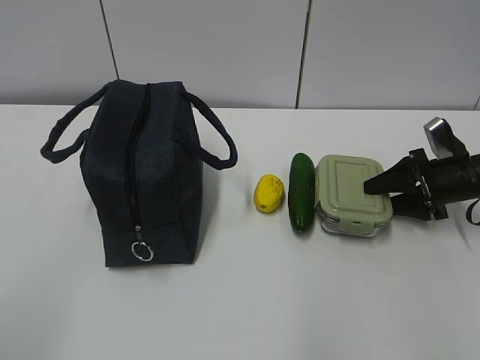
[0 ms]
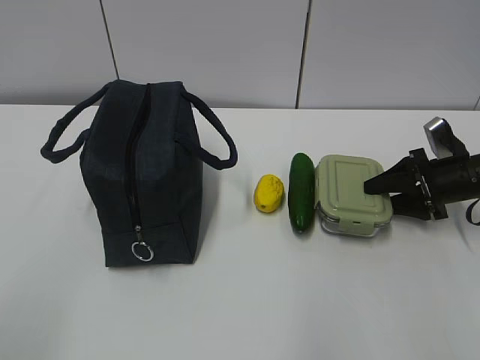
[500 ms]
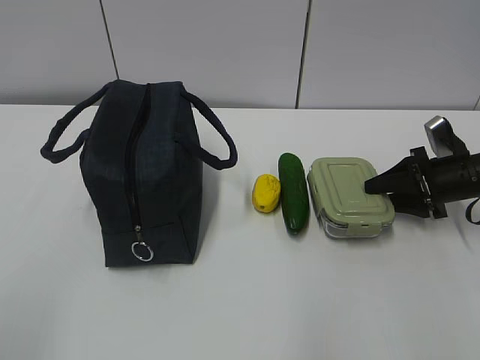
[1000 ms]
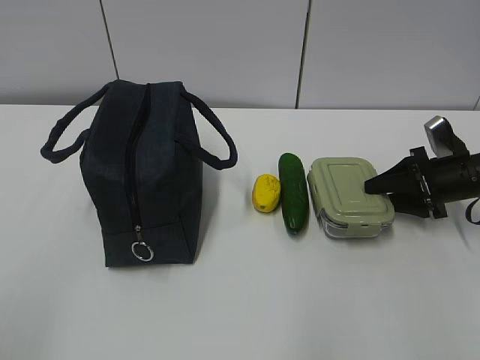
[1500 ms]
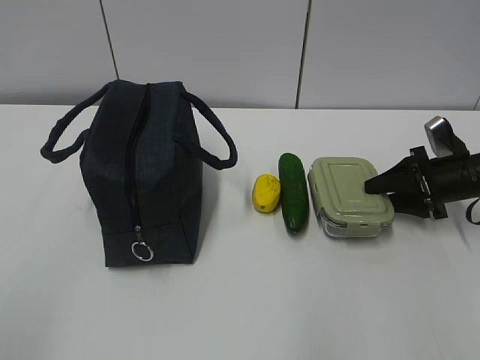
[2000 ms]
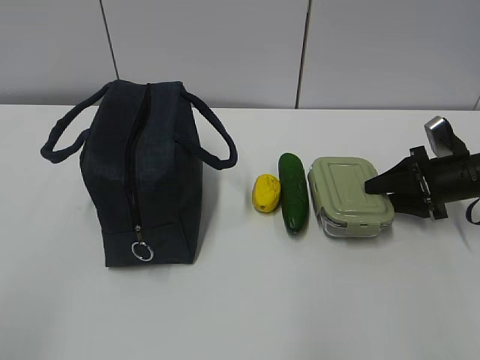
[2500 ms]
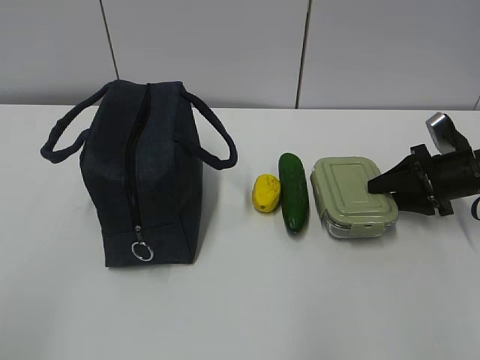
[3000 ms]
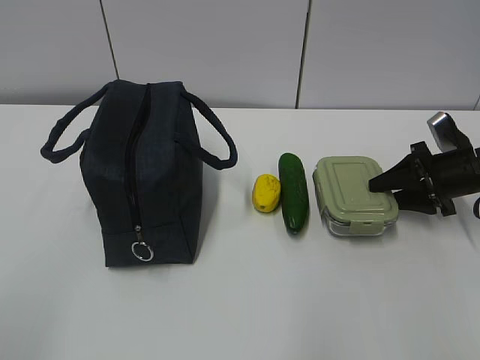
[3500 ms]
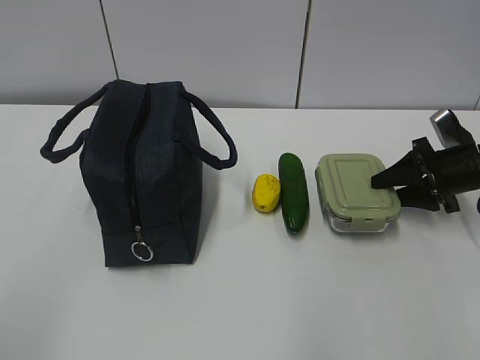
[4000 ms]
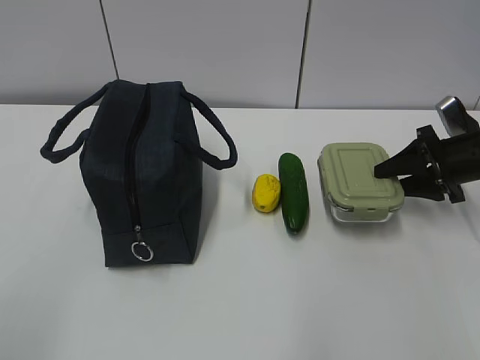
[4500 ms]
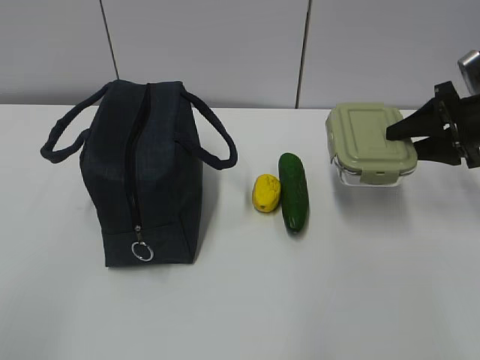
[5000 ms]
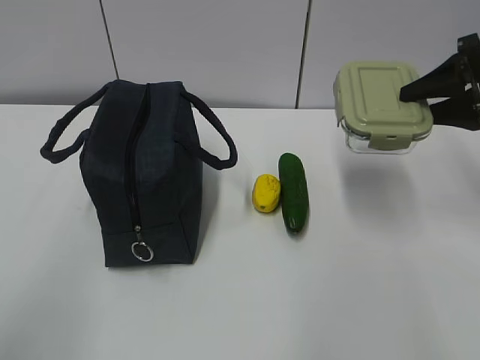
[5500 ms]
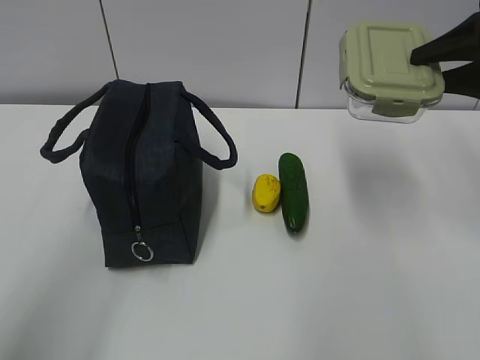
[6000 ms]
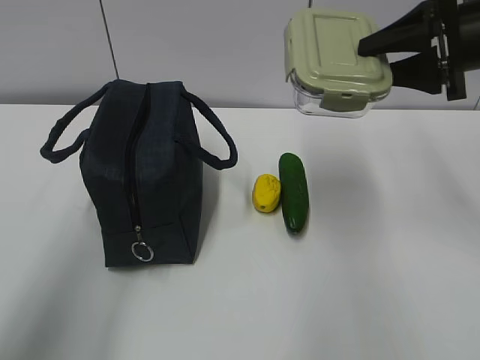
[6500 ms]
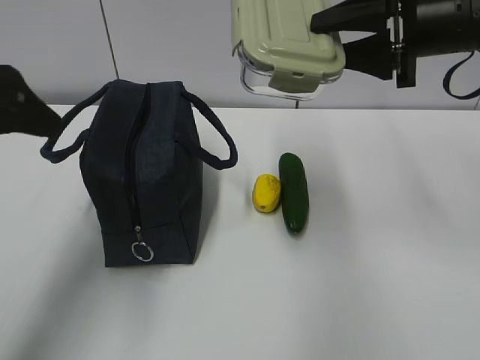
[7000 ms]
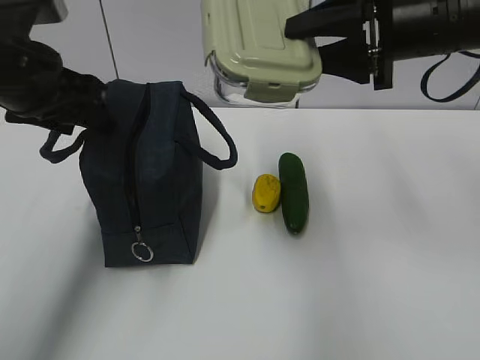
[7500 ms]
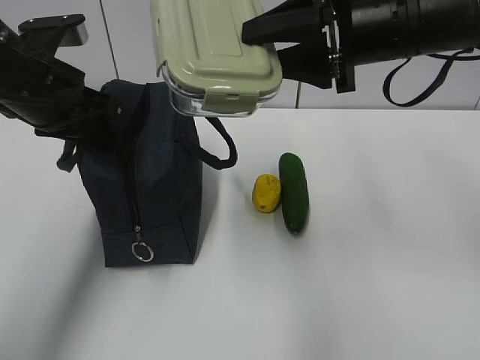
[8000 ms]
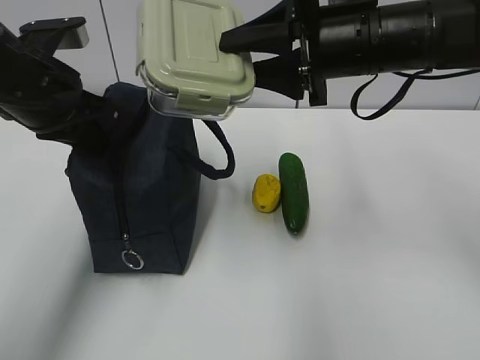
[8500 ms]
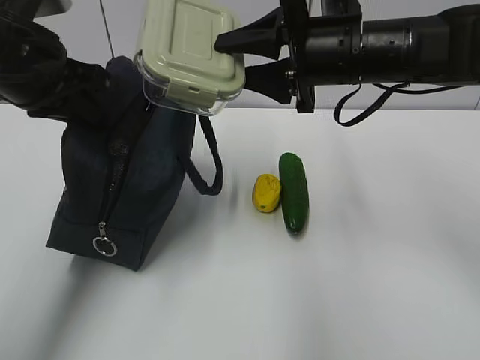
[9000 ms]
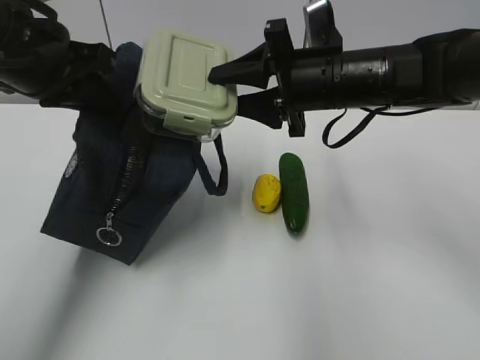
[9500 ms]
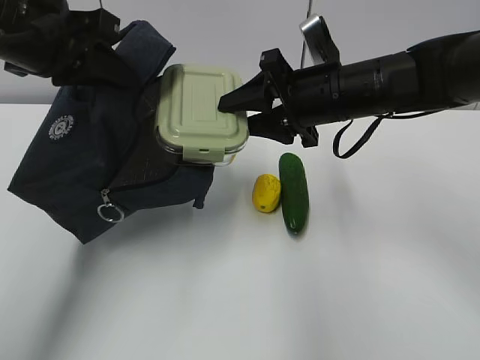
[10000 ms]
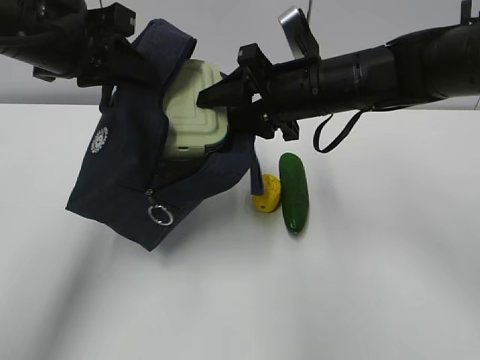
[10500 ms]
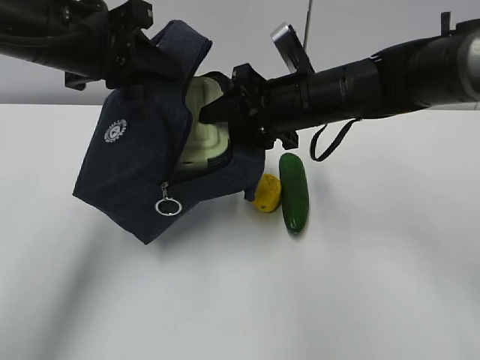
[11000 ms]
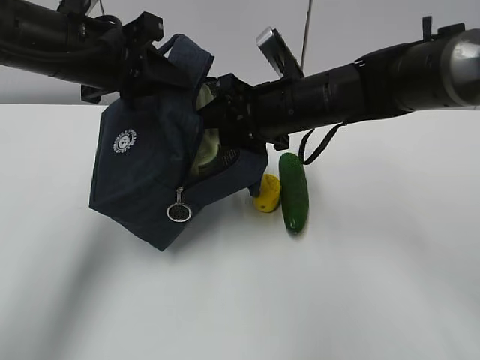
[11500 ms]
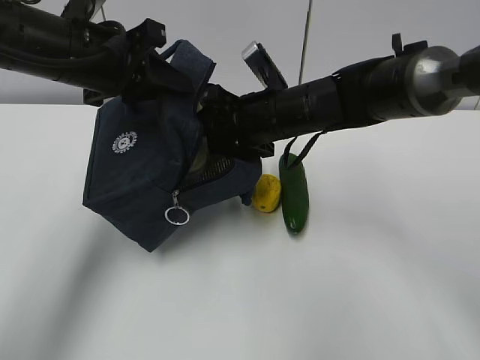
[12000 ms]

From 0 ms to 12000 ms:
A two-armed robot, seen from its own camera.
Step, from 2000 ms to 6000 ms: Grab the lunch bag with your left hand.
Step, from 6500 ms to 9500 ms: Place it into the bag with your right hand.
From 0 ms to 4000 ms: There are only small adjustments of the grippers.
From 4000 ms to 6000 ms: The left gripper heads forward, covering approximately 10 cm, while the right gripper is displaced upward by some 20 cm.
From 6000 ms to 8000 ms: The right gripper heads to the left, covering roughly 15 cm; the left gripper heads forward, covering about 25 cm, and closes.
From 8000 ms to 10000 ms: The right gripper travels downward by some 10 cm. The left gripper moves upward, about 5 cm, and closes up.
From 10000 ms to 12000 ms: The right gripper heads to the left, covering some 5 cm. The left gripper shifts by about 5 cm.

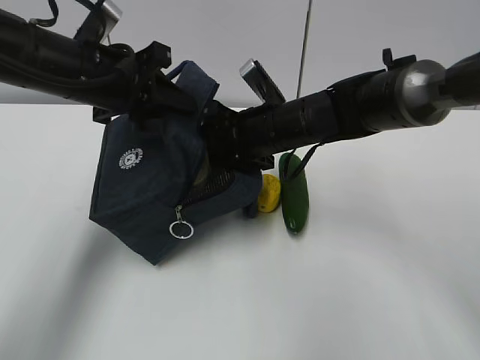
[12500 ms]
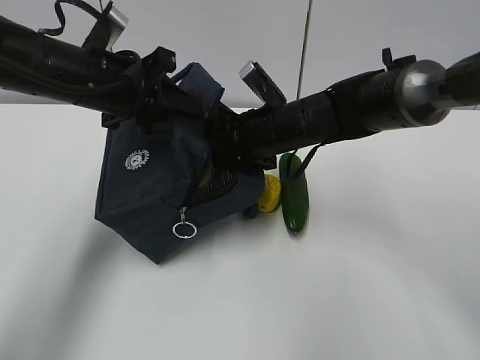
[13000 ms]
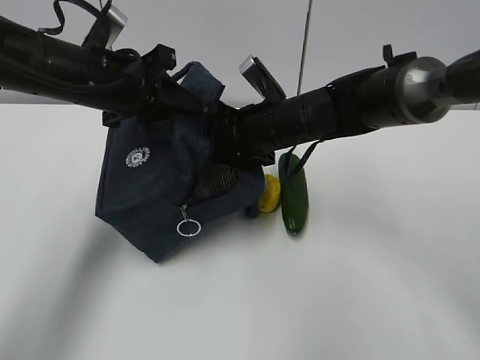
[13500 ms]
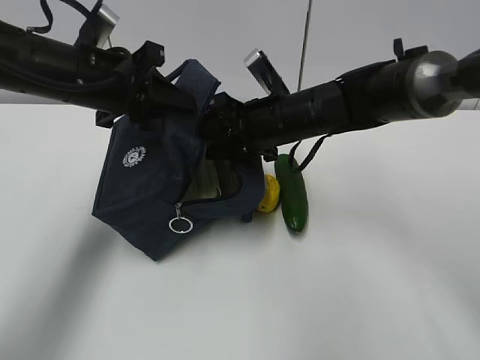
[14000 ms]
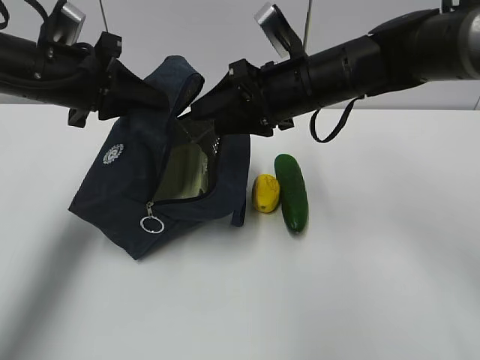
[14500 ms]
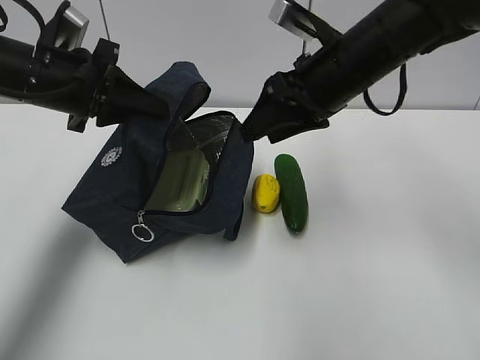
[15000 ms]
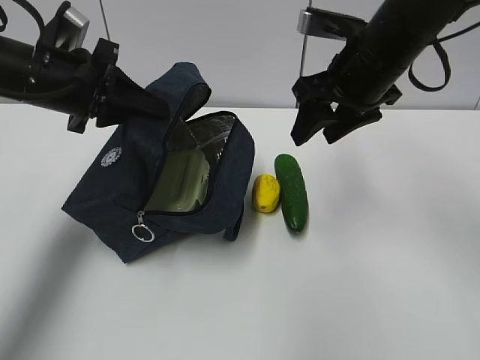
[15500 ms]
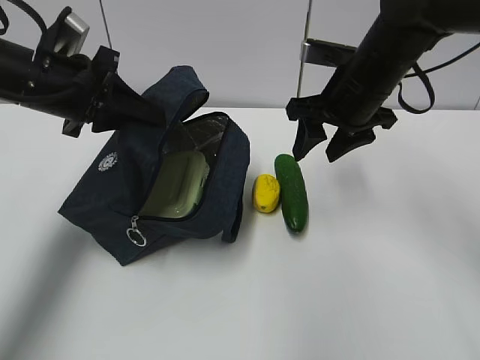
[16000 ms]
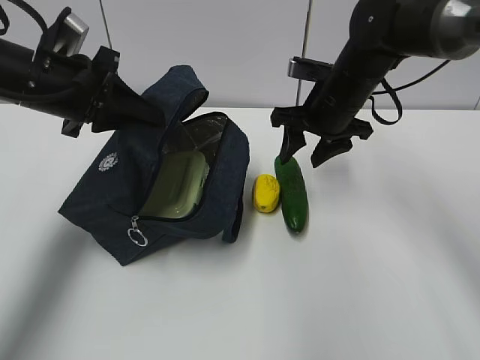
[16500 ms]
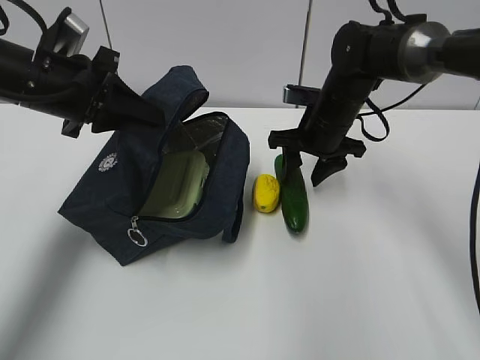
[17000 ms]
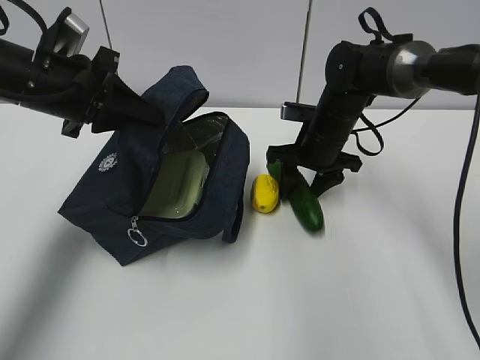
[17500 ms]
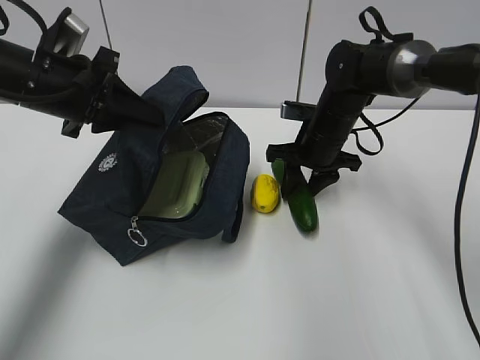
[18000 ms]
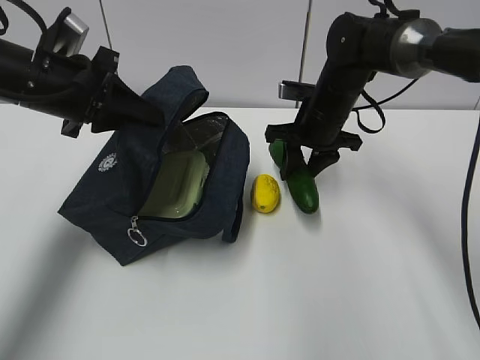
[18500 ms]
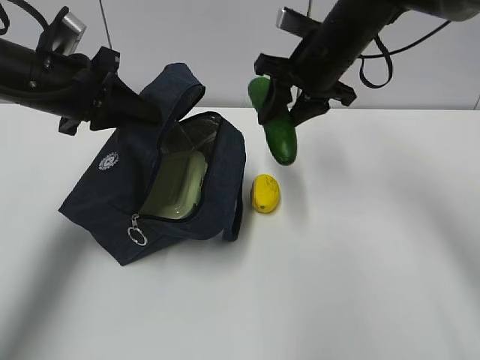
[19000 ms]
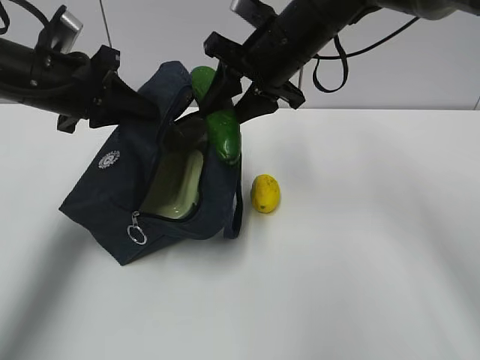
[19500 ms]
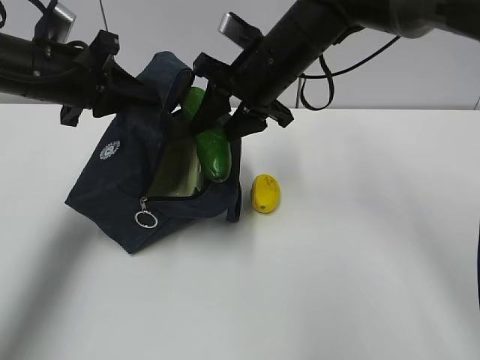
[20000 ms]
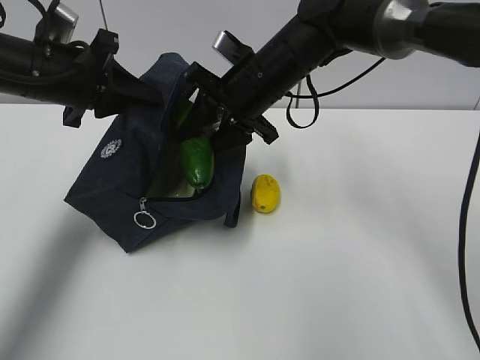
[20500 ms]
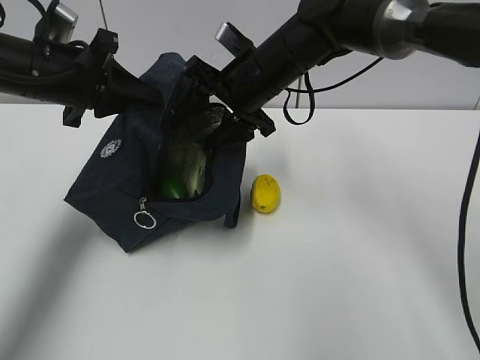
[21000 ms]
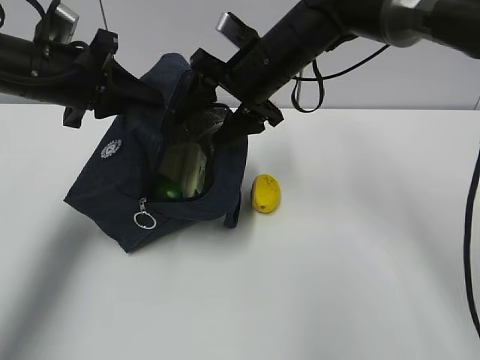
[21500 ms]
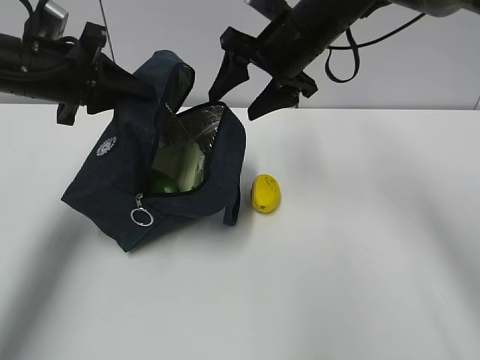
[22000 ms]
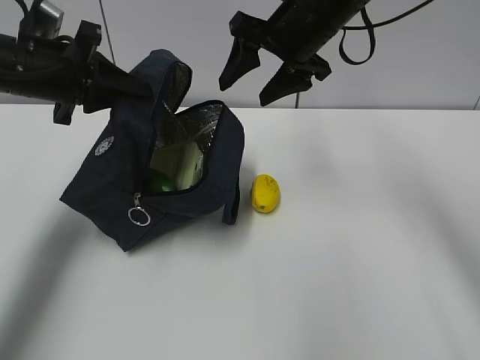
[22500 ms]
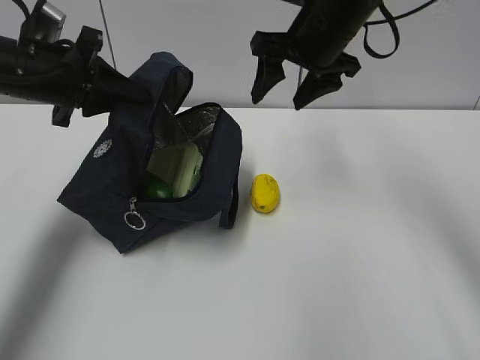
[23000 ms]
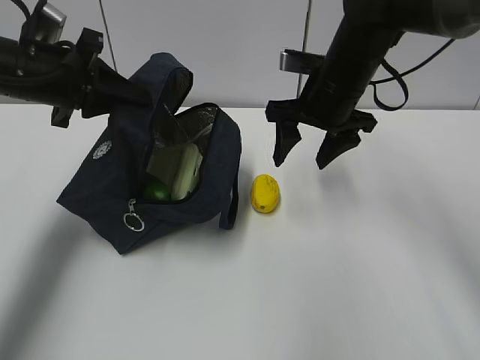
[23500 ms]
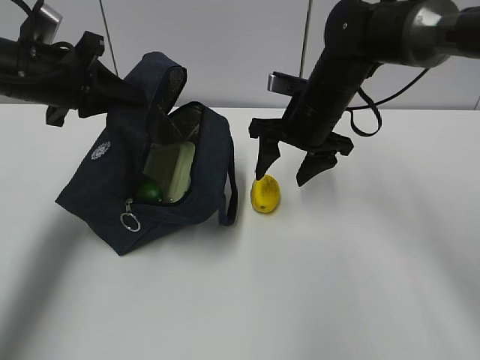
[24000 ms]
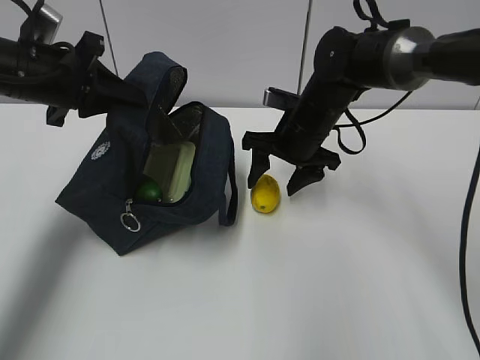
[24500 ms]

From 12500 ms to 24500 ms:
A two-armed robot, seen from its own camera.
Step, from 13500 ms to 16000 ms: Place it into the bag with your right hand.
Step, from 16500 ms to 20000 ms: Grab the lemon with your right hand.
Step, from 20500 ms to 22500 ms: Secure the lunch bag with your left hand.
Step, from 23000 ms to 24000 ms: Grab the lunch bag with your right hand.
From 12500 ms to 14500 ms: The right gripper heads upward, covering about 5 cm.
From 14500 ms to 16500 ms: The right gripper shifts approximately 5 cm to the right.
From 18500 ms to 20500 ms: The right gripper goes some 10 cm to the left and upward.
From 20500 ms to 22500 ms: The right gripper goes some 10 cm upward and to the right, and opens.
From 22500 ms to 24500 ms: The right gripper moves downward, about 15 cm.

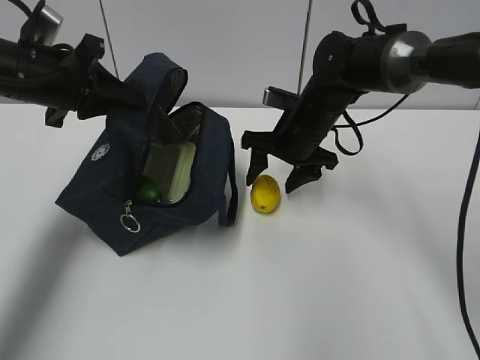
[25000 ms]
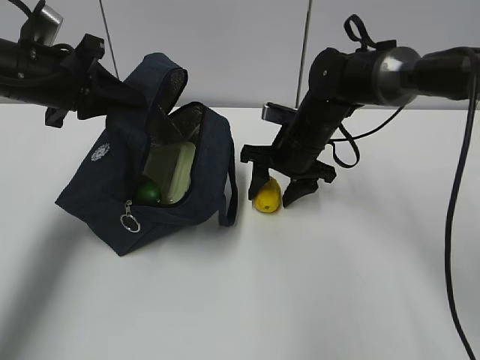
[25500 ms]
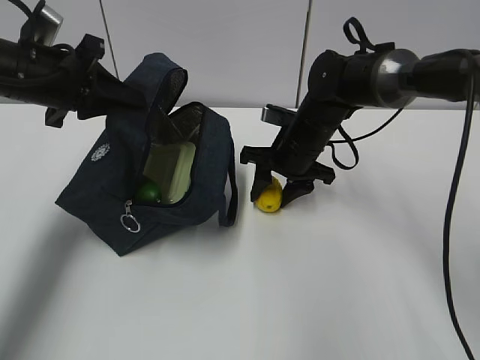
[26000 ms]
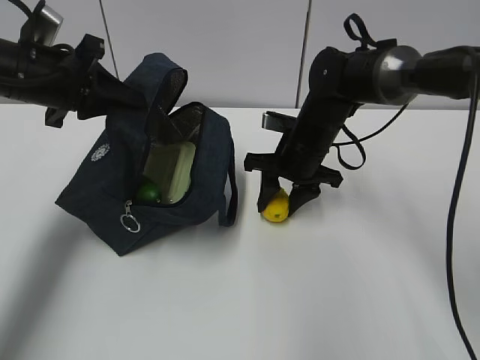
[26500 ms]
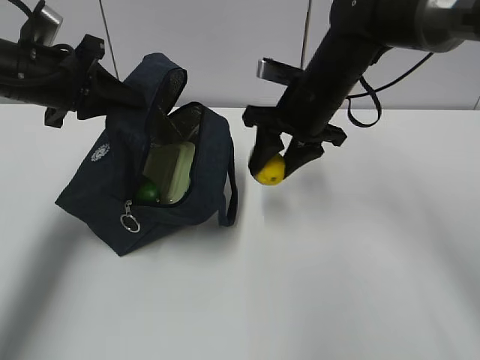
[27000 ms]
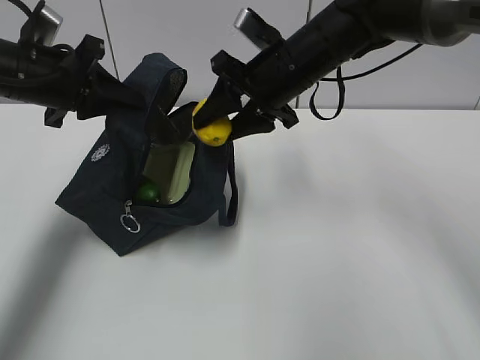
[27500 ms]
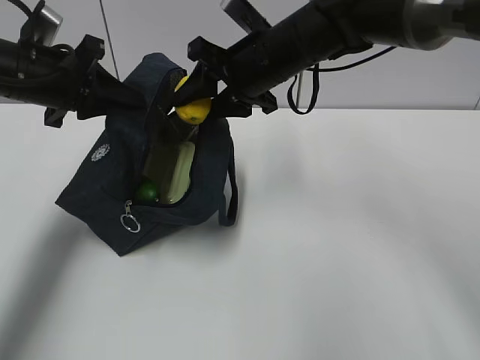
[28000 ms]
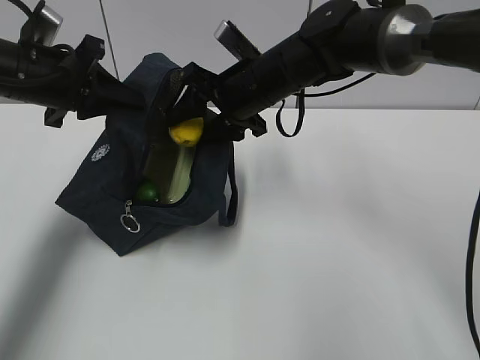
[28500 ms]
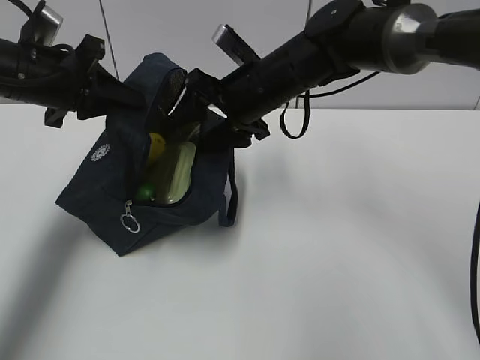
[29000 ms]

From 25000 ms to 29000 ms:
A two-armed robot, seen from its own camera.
Step, from 25000 ms to 27000 ms: Move the lunch bag to the right.
From 25000 ms to 27000 ms: The right gripper moves upward, approximately 5 cm, and closes up.
From 27000 ms to 29000 ms: The right gripper shifts some 5 cm to the left, and opens its fingers.
